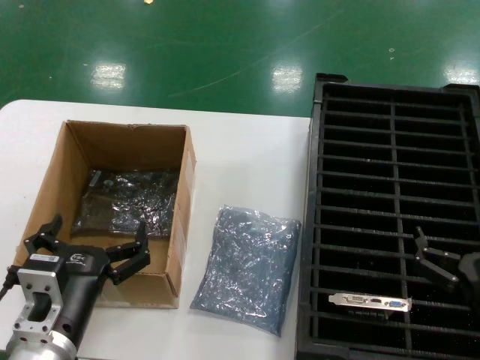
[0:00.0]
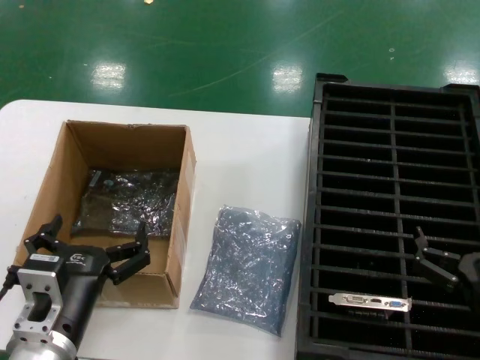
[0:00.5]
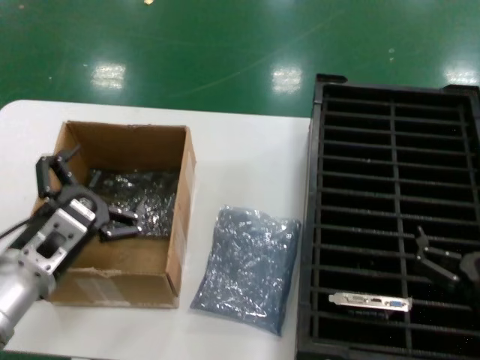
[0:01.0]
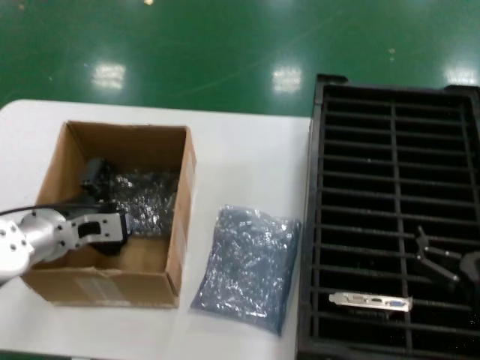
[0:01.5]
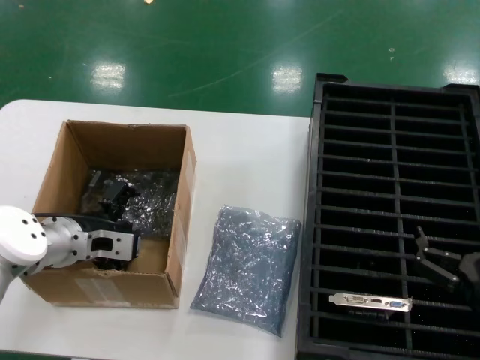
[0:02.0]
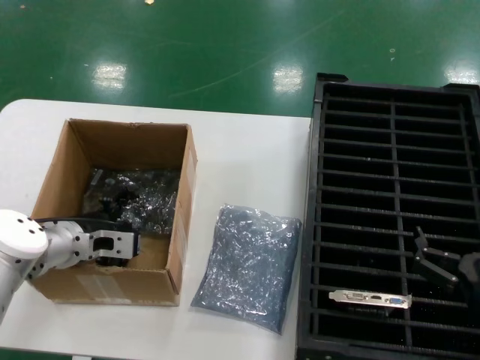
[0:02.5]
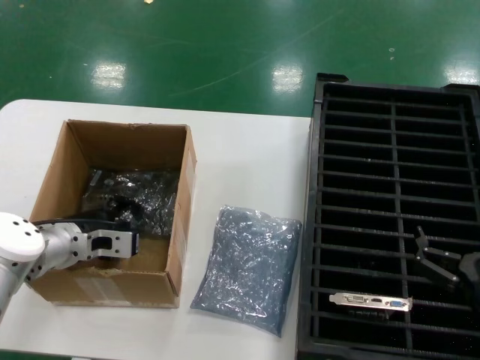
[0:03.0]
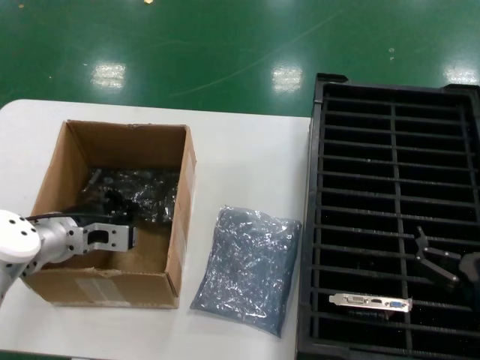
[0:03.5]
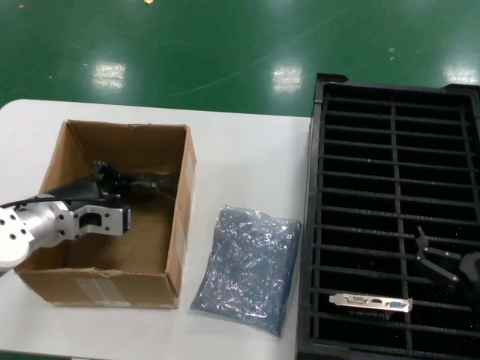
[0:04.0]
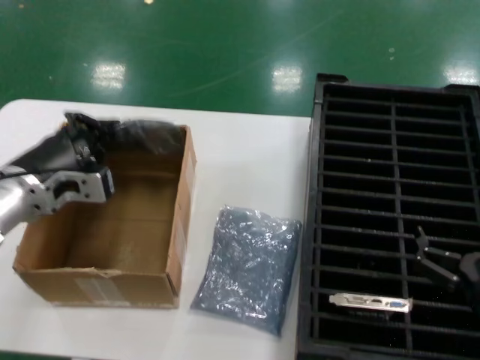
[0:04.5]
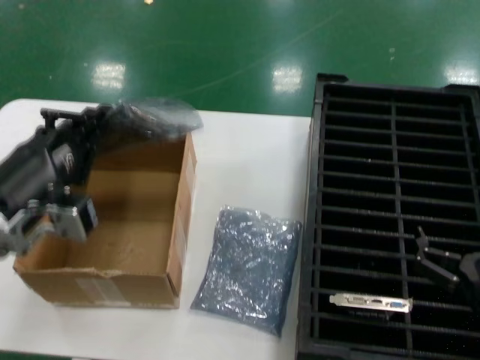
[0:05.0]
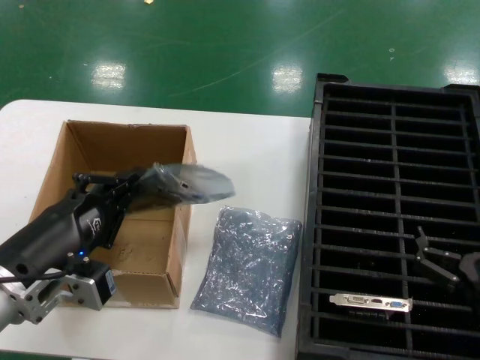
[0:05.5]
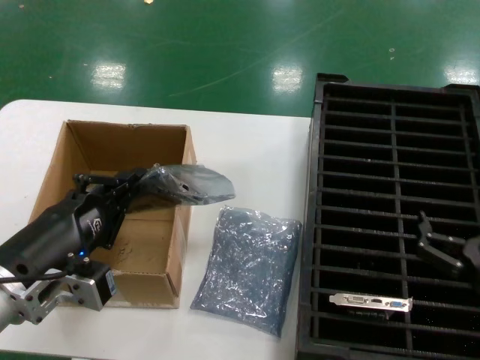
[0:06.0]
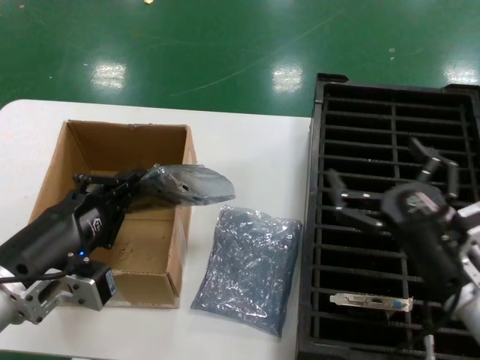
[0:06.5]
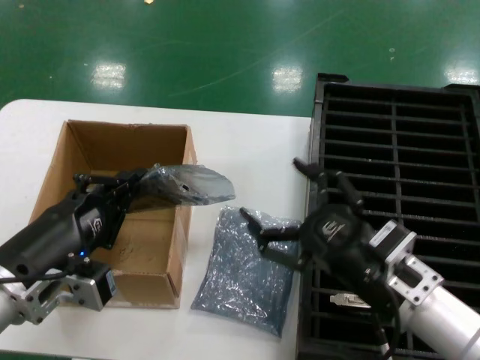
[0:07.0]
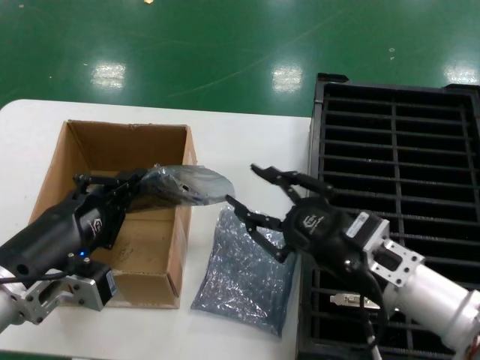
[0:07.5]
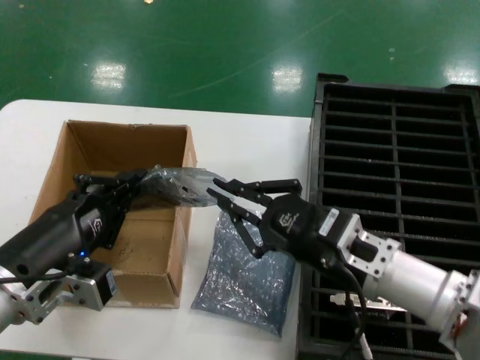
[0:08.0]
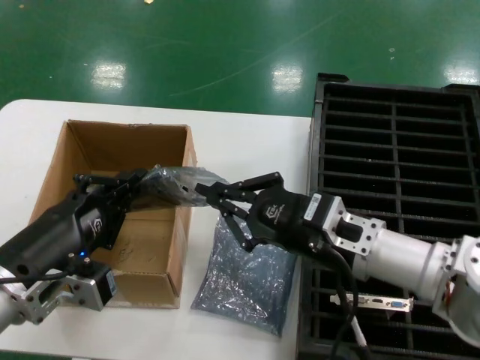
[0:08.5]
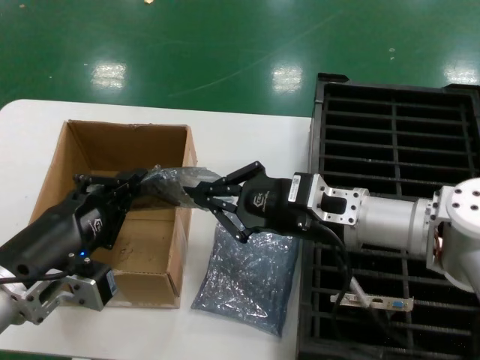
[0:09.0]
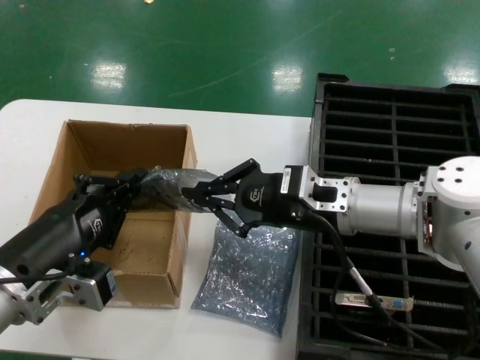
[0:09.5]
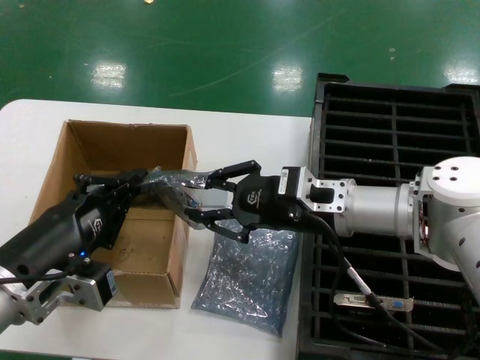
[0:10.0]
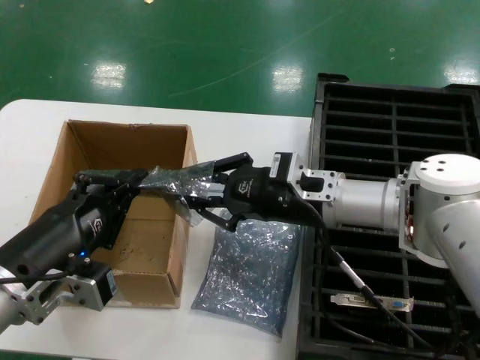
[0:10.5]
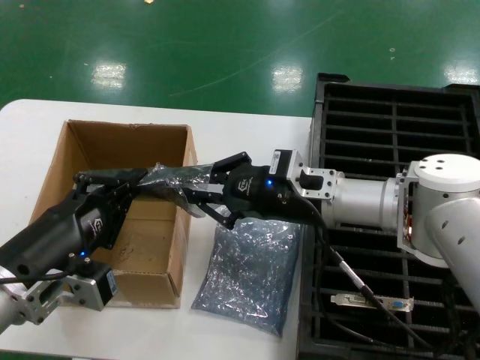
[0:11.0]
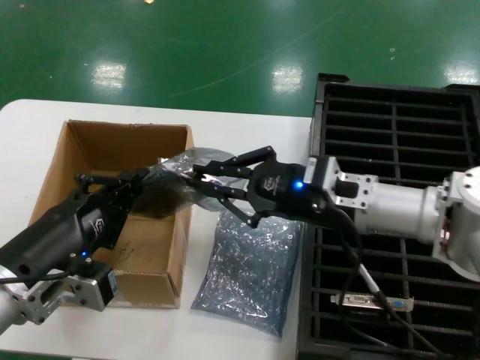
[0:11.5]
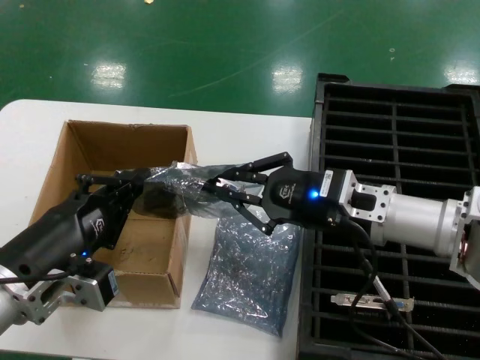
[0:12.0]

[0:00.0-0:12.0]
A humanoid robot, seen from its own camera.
Task of the whole recording: take out graphics card from box remove packaging put into black container.
Step, 0:00.0 to 0:03.0: Grasp the bag.
Step, 0:03.5 to 0:05.5: Lift the bag.
0:00.0 to 0:02.0: The left hand travels forward by approximately 20 cm.
0:02.0 to 0:04.0: There are only small adjustments of the hands.
0:04.0 to 0:06.0: The left hand moves backward, approximately 20 cm.
0:06.0 to 0:08.0: The right hand heads to the left, forward and upward, covering approximately 15 cm.
0:08.0 to 0:10.0: The right hand moves forward, some 10 cm.
0:10.0 to 0:12.0: The right hand moves some 5 cm.

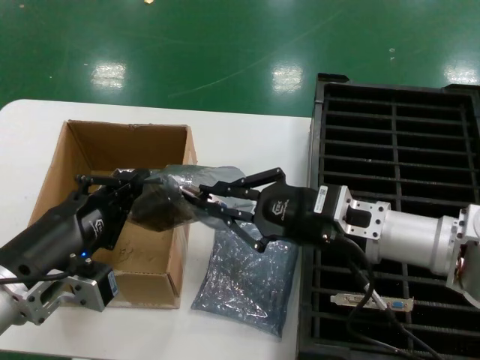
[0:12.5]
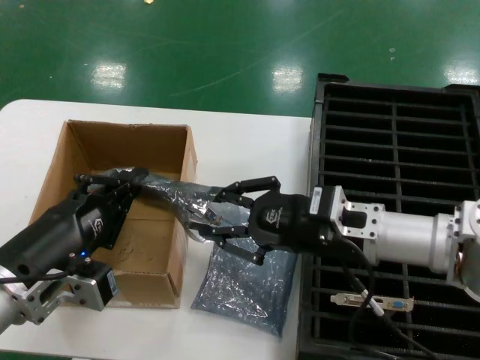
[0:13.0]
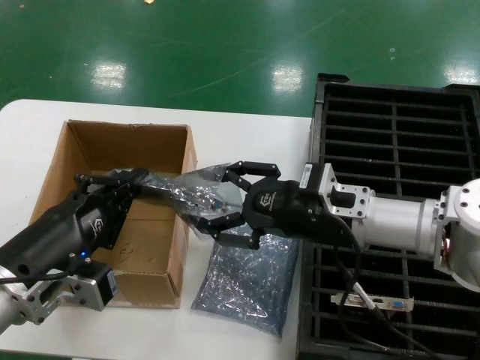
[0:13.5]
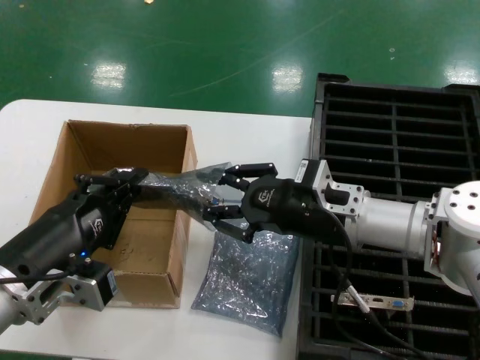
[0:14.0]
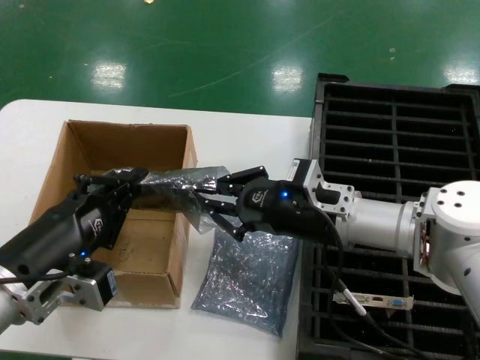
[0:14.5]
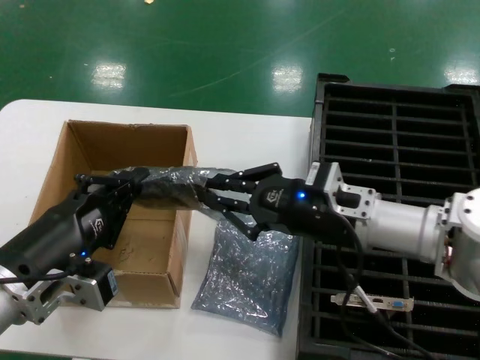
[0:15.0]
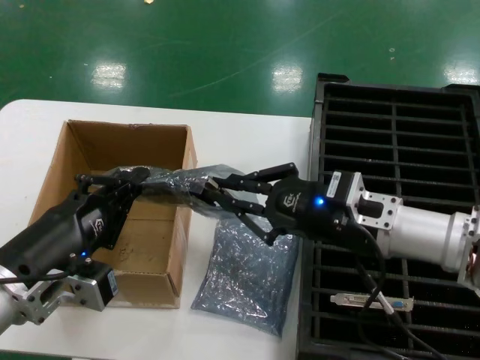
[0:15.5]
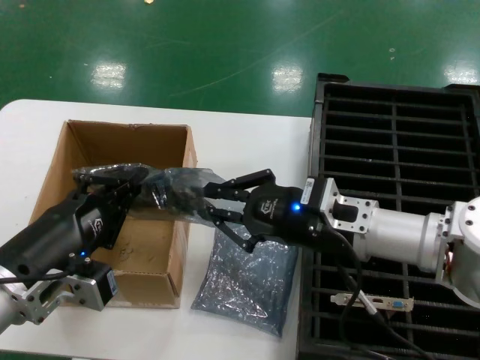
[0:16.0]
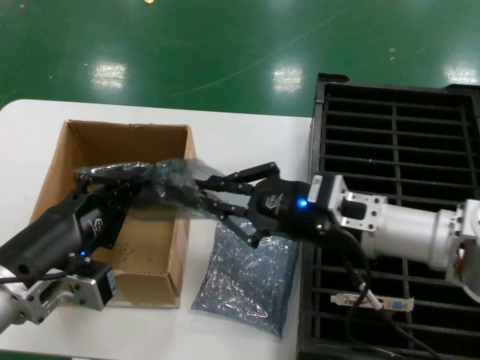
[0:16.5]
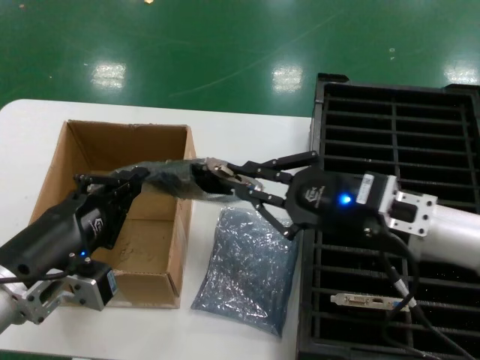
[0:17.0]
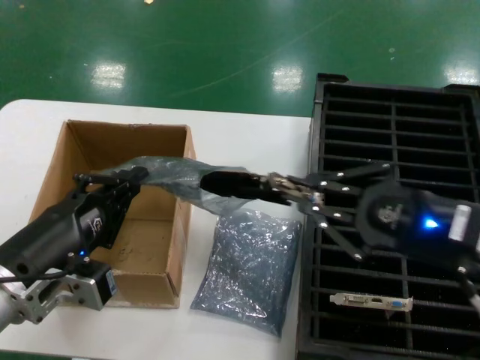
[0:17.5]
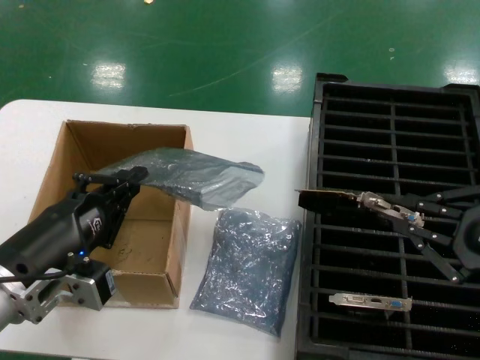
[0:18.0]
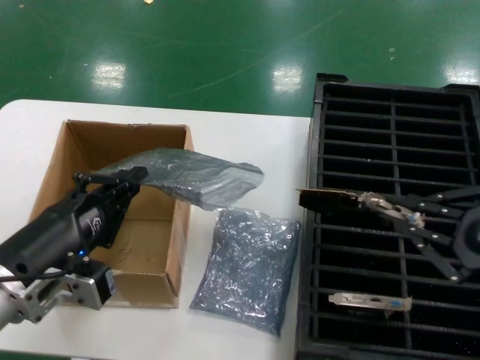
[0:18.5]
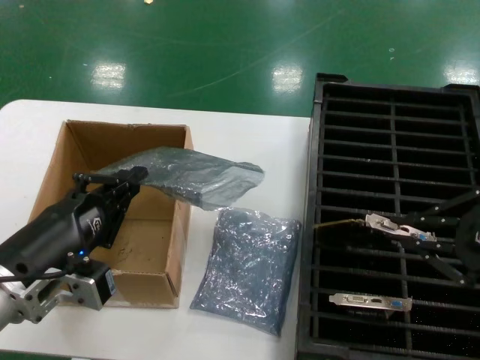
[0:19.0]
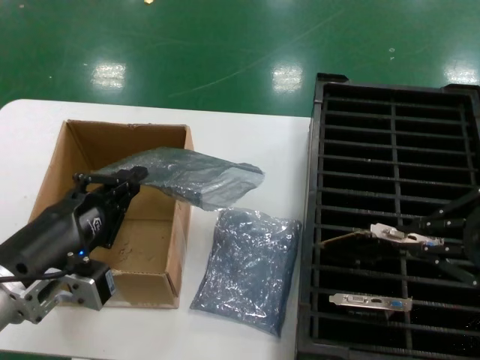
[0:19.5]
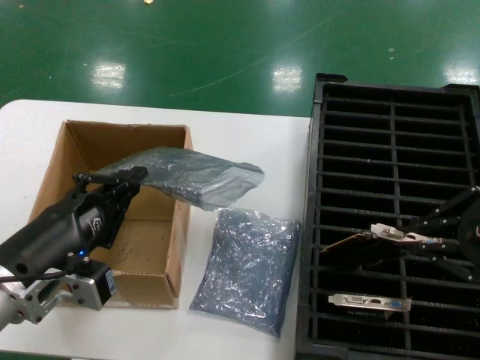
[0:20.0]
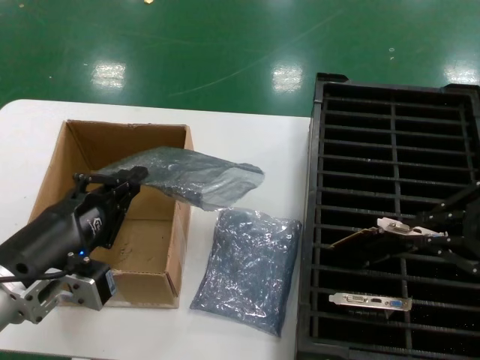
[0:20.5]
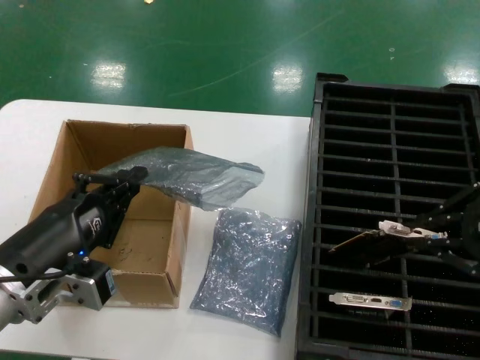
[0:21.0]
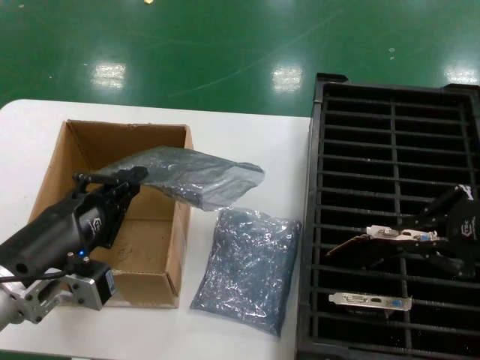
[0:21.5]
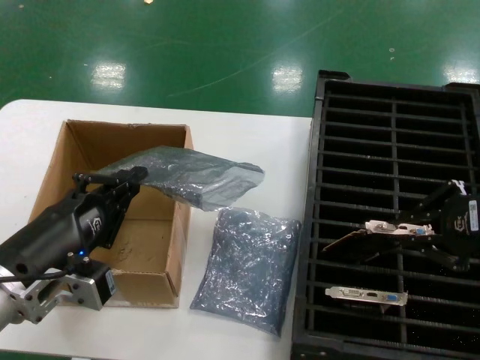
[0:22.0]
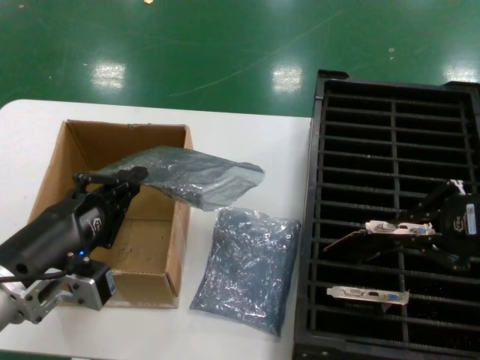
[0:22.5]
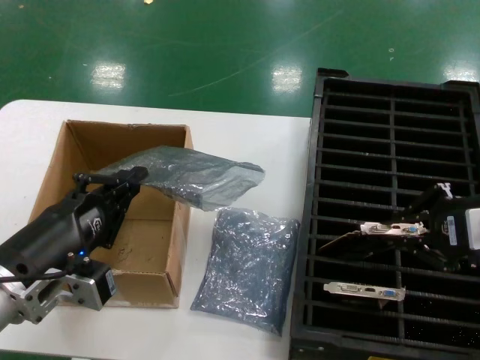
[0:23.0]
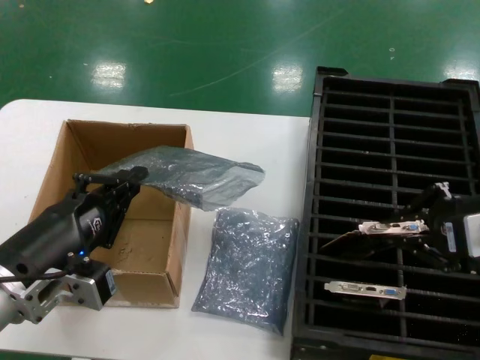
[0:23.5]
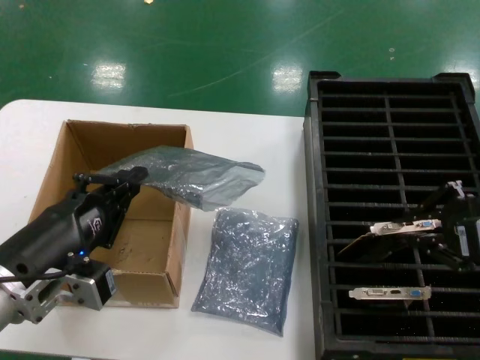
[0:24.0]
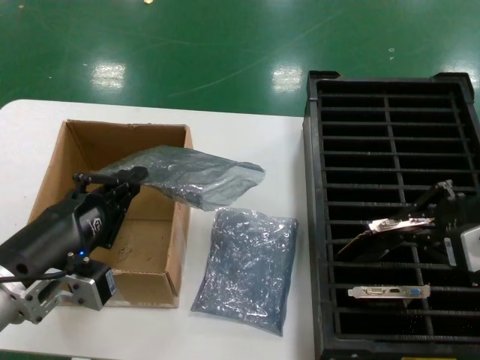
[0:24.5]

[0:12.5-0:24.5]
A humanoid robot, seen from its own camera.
Task of the whole recording: take out graphics card from box remove packaging put into black container.
Step, 0:12.5 to 0:17.5: Take out the hard disk of the bag.
0:12.5 to 0:16.5: The hands stay close to where they were, moving slightly.
0:16.5 to 0:18.5: The right hand travels to the right and backward by roughly 25 cm.
0:18.5 to 0:20.5: The right hand goes about 10 cm upward and forward.
0:20.5 to 0:22.5: The hands make only small movements.
0:22.5 to 0:24.5: The hands move only a little.

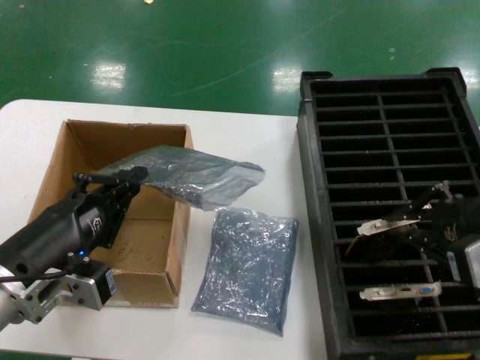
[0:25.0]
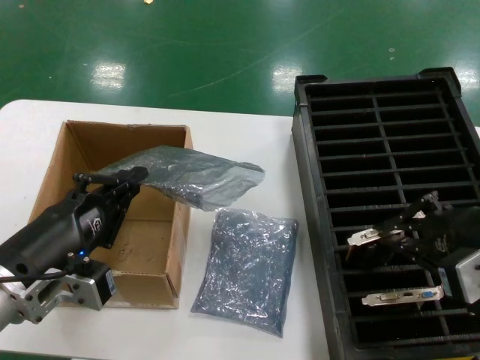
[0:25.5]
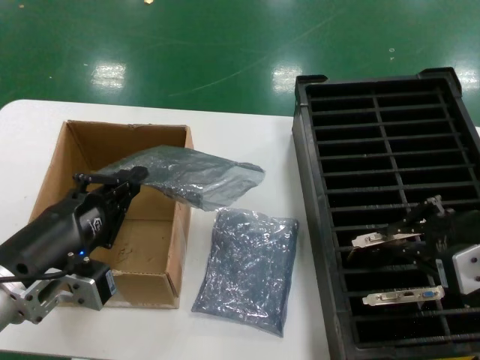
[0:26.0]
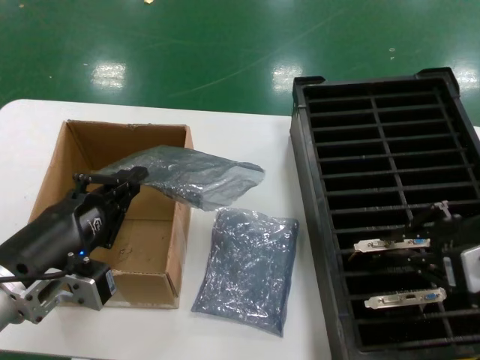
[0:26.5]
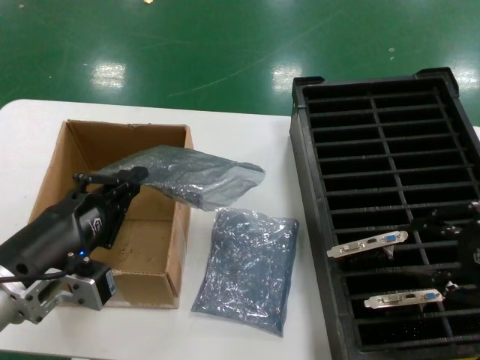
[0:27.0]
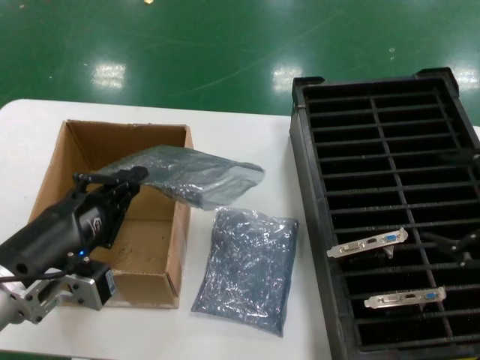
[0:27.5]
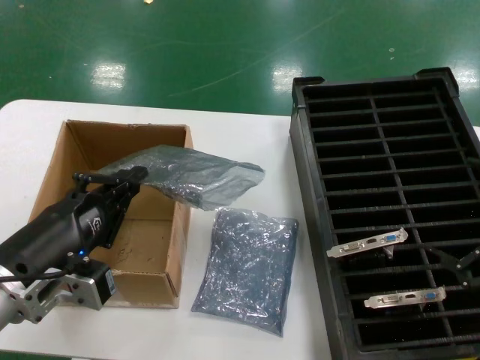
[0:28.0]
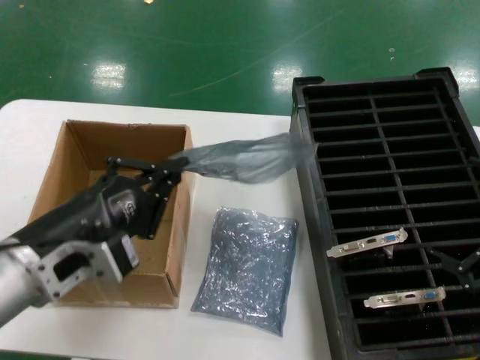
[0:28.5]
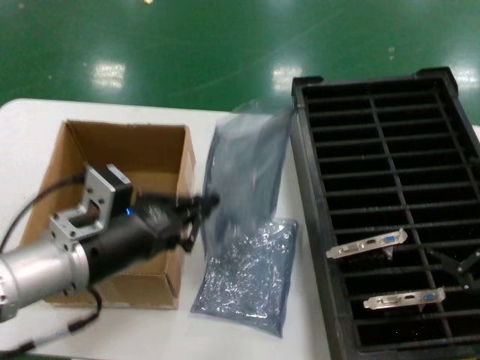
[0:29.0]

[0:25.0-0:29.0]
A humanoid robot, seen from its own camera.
Task of the whole recording: take out graphics card from box remove packaging put into black container.
Step, 0:25.0 to 0:27.0: Place the hard disk in the hard disk enclosure.
0:25.0 to 0:27.0: There are only small adjustments of the hands.
0:27.0 to 0:29.0: The right hand heads to the right, covering some 5 cm; the left hand ends up approximately 5 cm from where it was.
